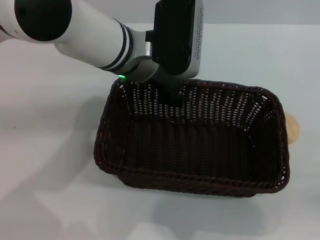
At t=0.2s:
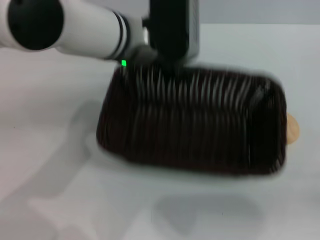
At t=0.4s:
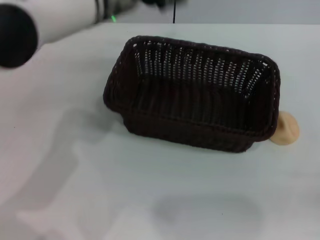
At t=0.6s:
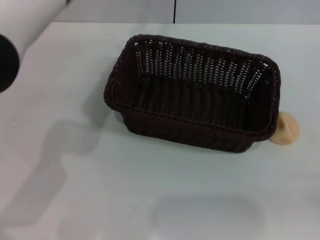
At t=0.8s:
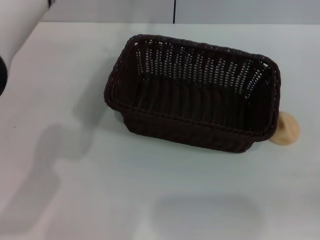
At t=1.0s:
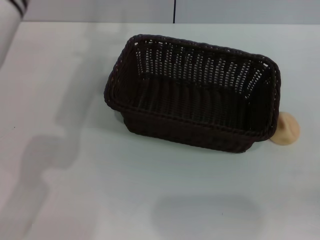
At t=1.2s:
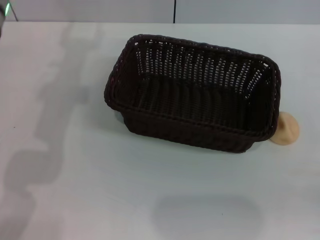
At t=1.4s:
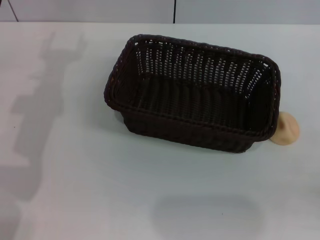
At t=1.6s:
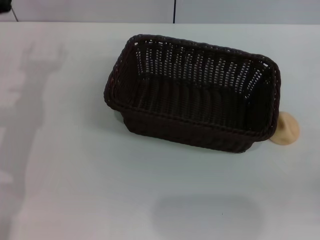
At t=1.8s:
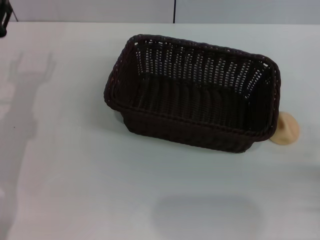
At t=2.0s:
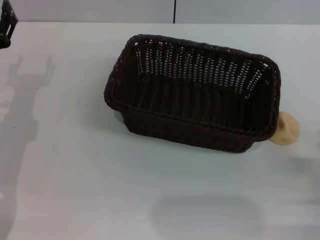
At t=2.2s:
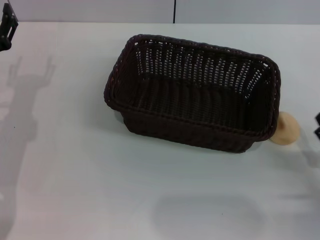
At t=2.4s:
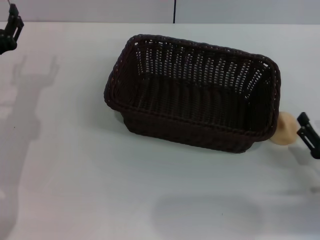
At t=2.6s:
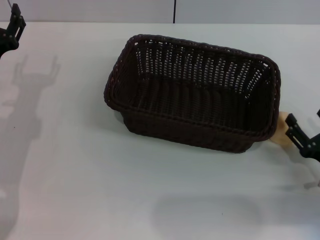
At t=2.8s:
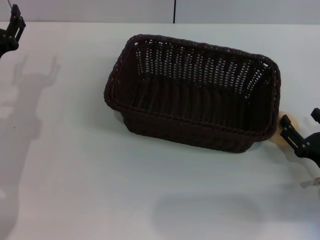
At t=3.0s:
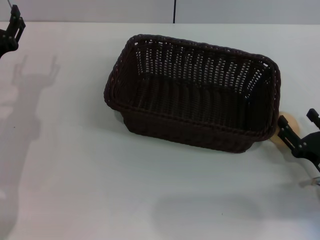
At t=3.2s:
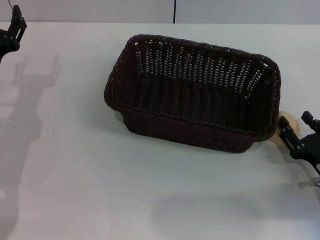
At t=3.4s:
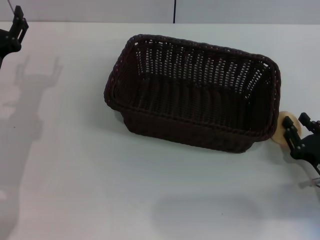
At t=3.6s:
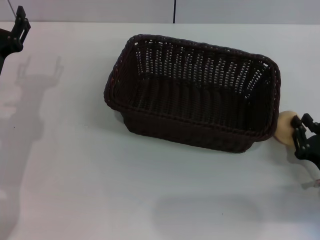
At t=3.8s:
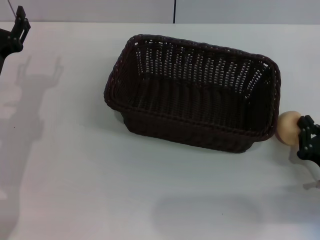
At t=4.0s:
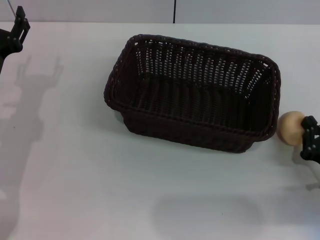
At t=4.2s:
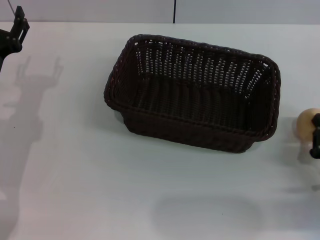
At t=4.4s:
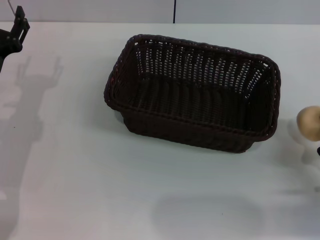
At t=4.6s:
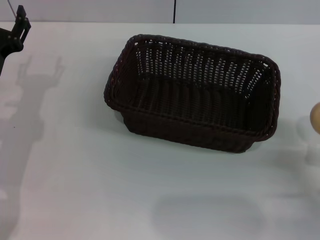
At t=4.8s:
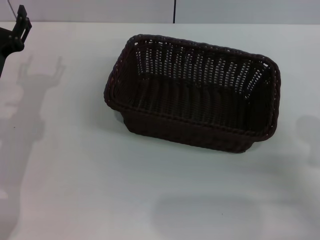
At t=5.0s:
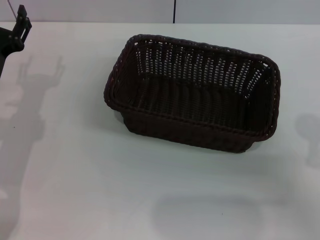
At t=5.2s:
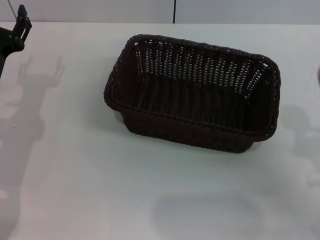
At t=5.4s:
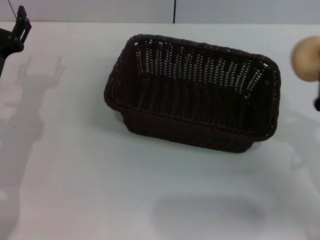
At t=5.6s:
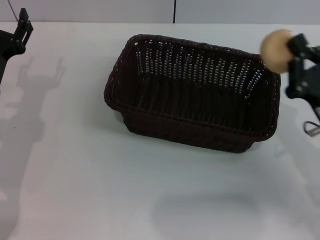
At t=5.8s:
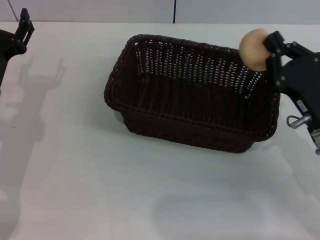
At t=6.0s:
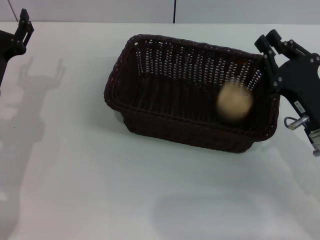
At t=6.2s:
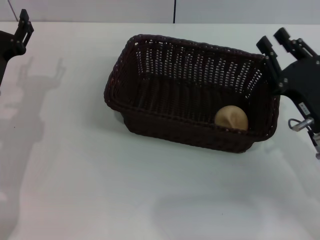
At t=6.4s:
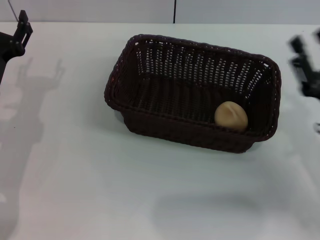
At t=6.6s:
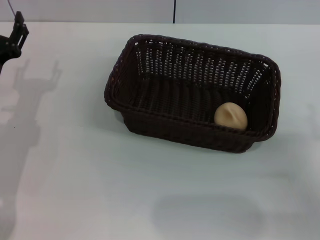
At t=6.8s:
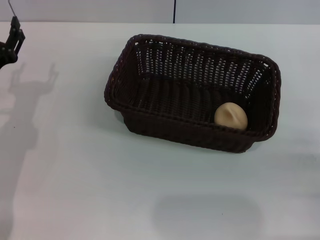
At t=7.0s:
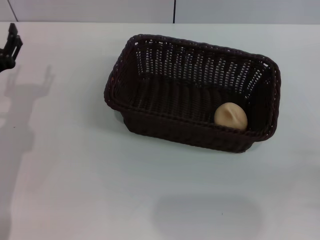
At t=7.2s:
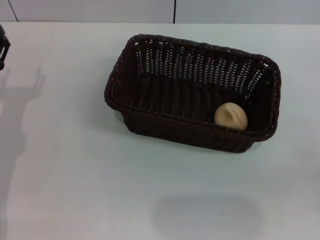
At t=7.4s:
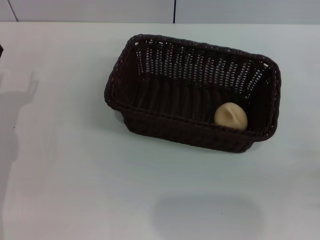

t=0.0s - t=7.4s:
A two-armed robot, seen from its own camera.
Step, t=0.4s - t=4.4s: Pick up the egg yolk pastry with the right gripper.
Step, t=4.6s - t=6.2s: Place the egg yolk pastry into the basket with the right gripper.
t=0.0s - t=1.4s: The left gripper moves to the left, roughly 20 cm.
t=1.4s - t=3.0s: The right gripper shifts about 15 cm forward and to the left, while the left gripper moves downward, some 10 cm.
t=3.0s - t=4.4s: The right gripper closes.
t=4.4s - t=6.0s: The right gripper is displaced forward, to the left and upward by some 10 cm.
t=6.0s - t=7.4s: The right gripper shifts approximately 15 cm backward and to the right, and opens its fingers.

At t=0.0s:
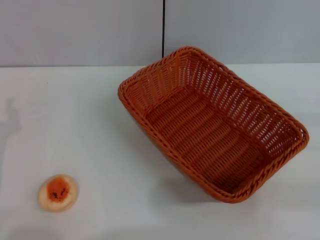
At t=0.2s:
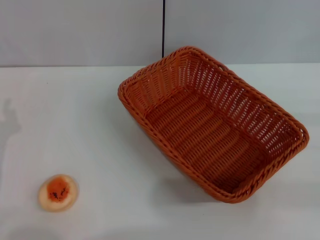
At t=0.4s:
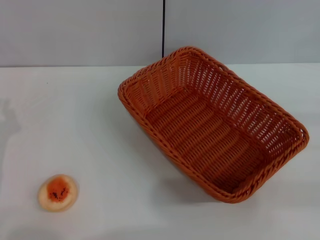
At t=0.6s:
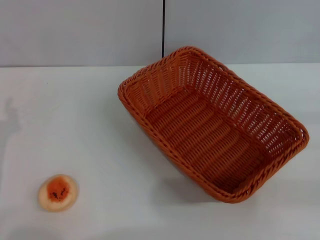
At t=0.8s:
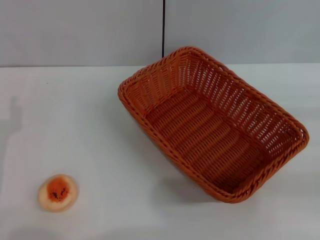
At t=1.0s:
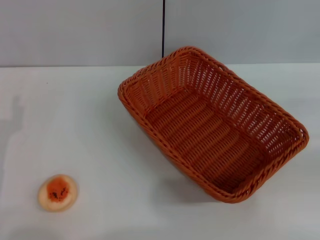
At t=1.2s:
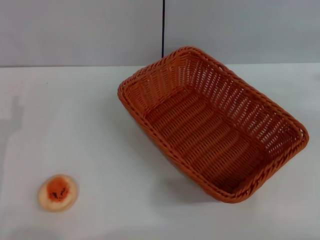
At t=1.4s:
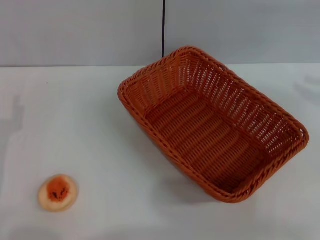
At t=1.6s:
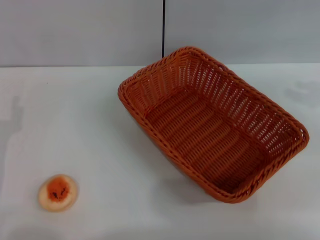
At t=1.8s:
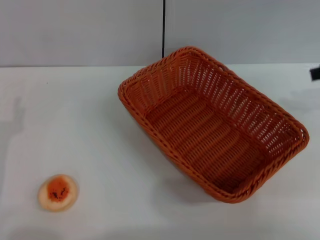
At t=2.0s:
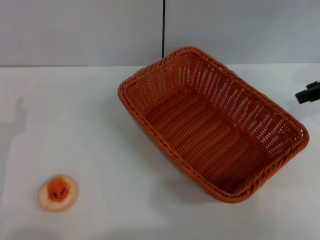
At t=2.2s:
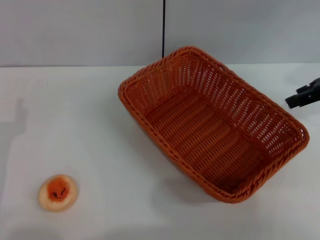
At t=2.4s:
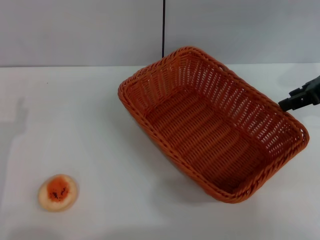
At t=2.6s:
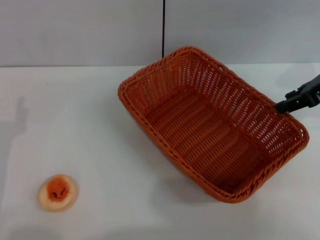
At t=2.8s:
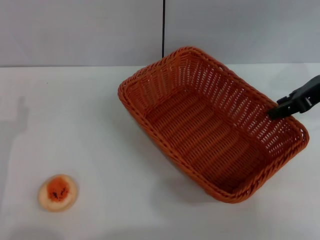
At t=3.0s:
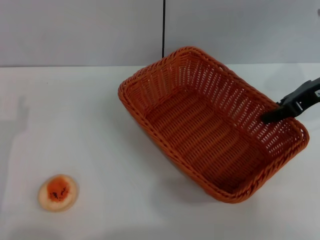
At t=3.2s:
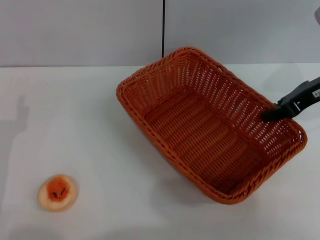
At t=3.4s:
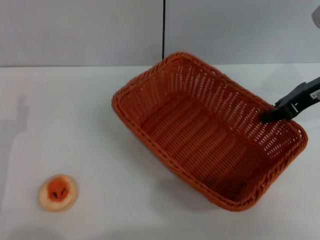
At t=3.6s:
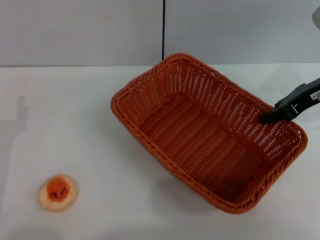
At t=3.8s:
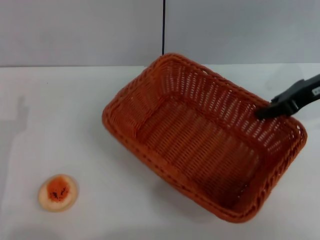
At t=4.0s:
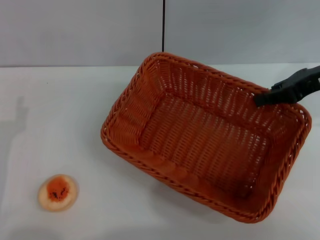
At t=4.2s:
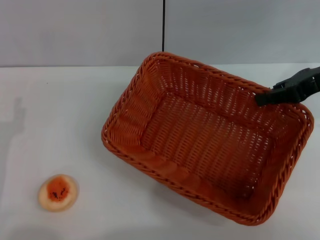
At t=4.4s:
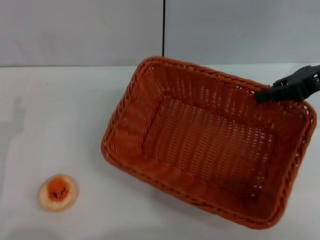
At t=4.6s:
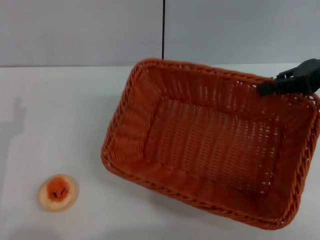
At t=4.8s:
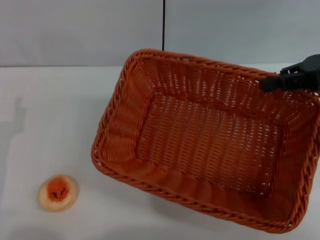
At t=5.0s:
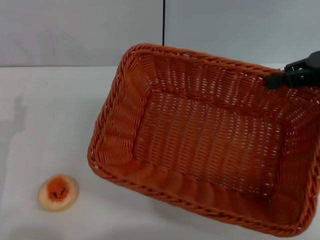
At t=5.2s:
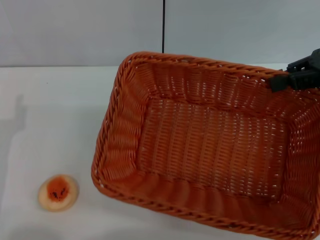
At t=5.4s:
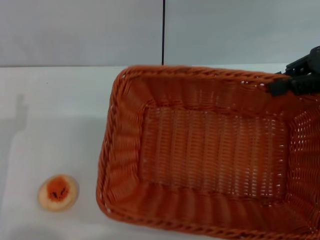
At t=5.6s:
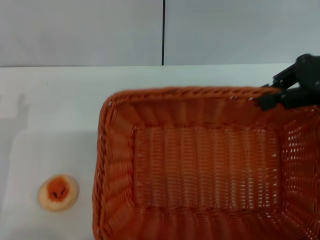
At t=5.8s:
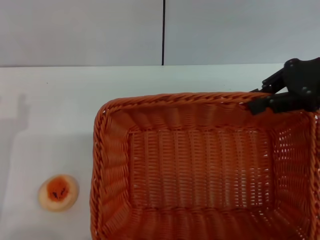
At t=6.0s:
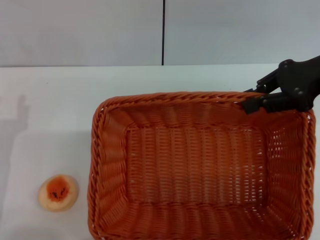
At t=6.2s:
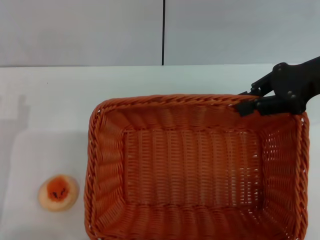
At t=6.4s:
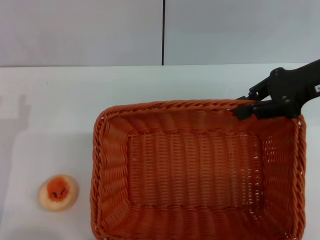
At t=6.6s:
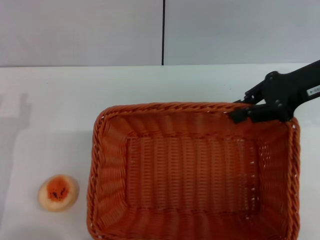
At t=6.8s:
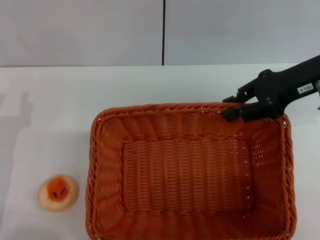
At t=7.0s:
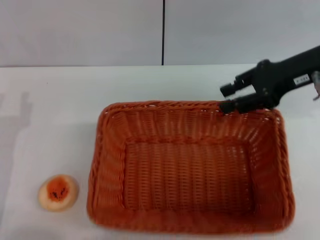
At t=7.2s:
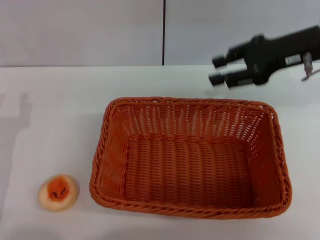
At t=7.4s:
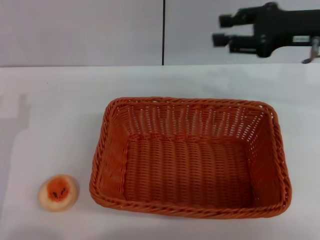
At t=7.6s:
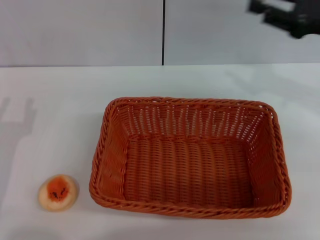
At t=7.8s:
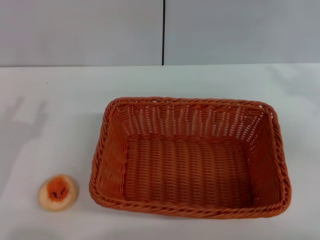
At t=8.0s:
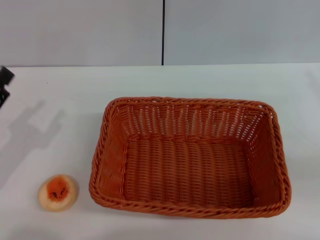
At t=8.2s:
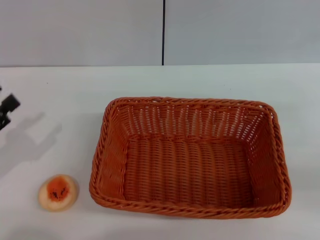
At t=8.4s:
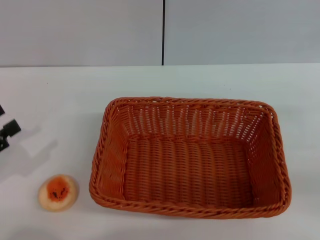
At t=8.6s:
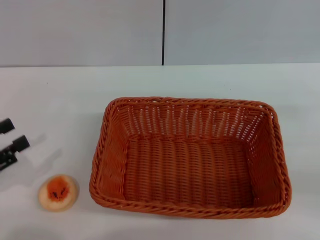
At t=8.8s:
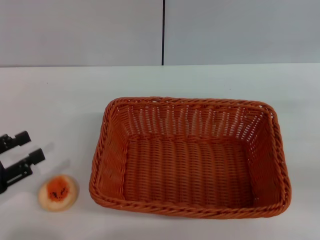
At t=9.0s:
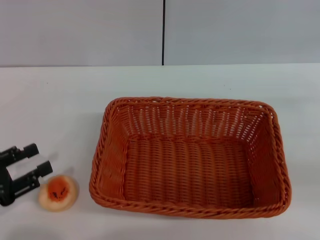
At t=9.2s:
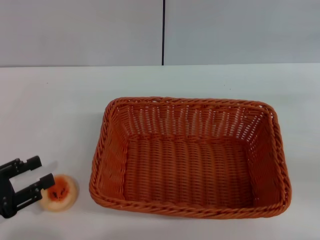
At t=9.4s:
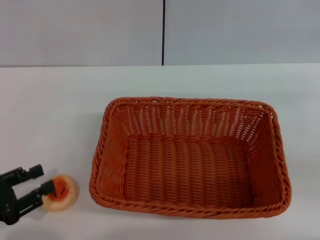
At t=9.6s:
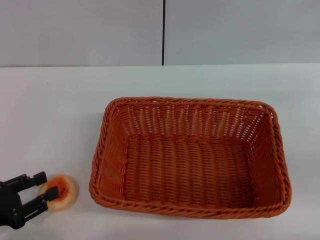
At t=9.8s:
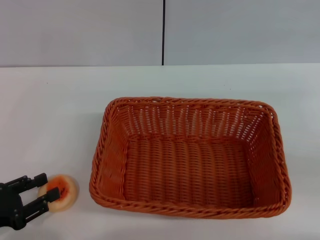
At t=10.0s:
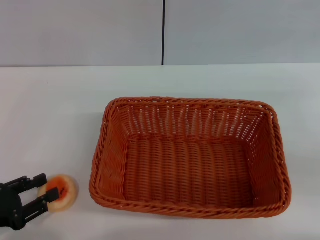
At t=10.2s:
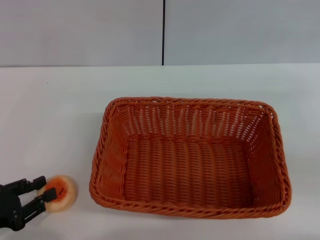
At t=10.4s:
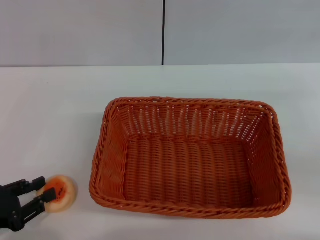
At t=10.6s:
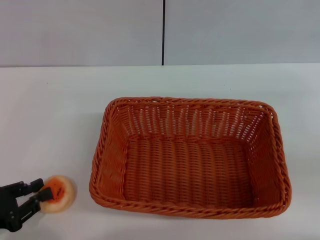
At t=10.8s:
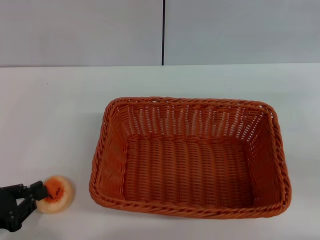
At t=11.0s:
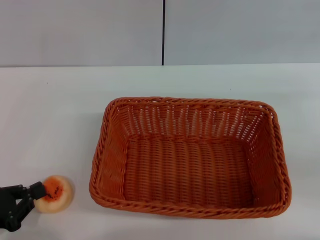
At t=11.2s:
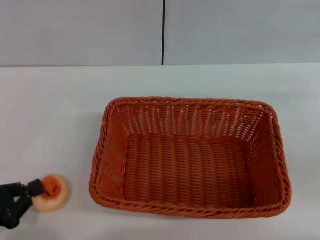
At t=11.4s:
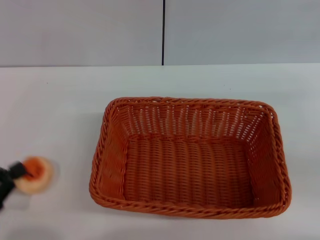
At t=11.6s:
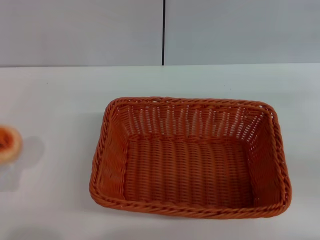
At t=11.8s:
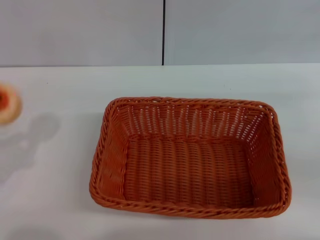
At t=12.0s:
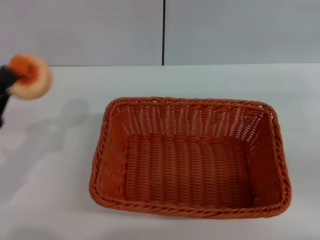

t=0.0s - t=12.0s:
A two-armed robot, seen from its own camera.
Step, t=0.0s - t=7.0s: Move the basket to the center of view with the right gripper.
Step, t=7.4s - t=11.2s: Pick up the egg yolk pastry with the left gripper.
t=1.6s - t=3.0s: The right gripper shifts roughly 10 cm to the left and downward.
t=3.0s - t=4.4s: The right gripper closes its fingers.
t=6.0s - t=7.6s: The right gripper opens its fingers.
t=7.6s - t=9.0s: The right gripper goes approximately 15 cm backward, to the right and downward. The left gripper is displaced to the left by about 5 cm.
t=9.0s - t=10.4s: The grippers move only a little.
t=10.4s - t=12.0s: The left gripper is displaced forward by some 5 cm, and closes.

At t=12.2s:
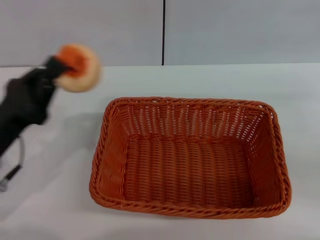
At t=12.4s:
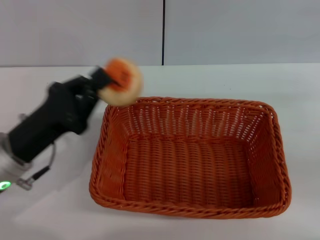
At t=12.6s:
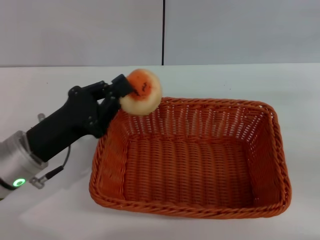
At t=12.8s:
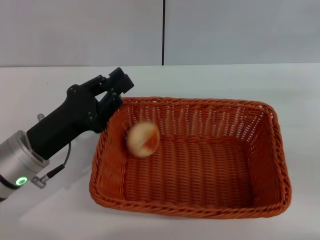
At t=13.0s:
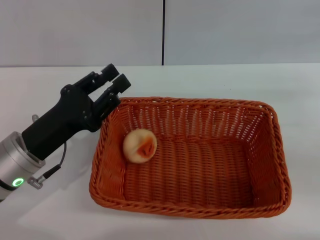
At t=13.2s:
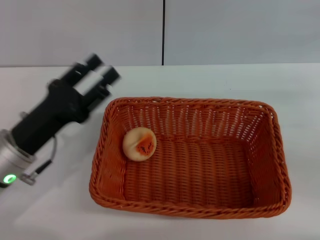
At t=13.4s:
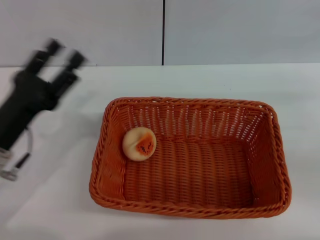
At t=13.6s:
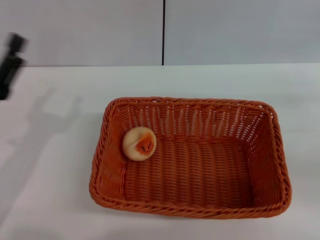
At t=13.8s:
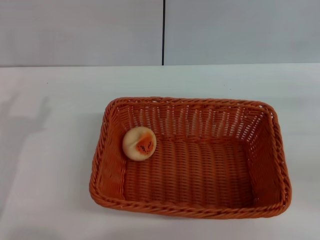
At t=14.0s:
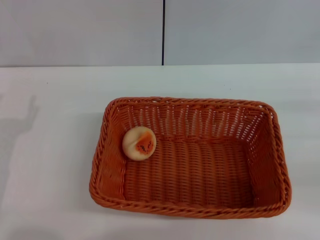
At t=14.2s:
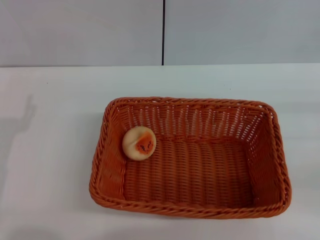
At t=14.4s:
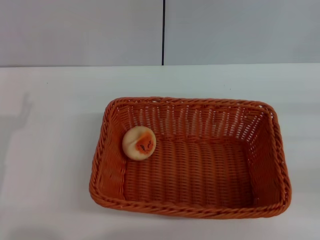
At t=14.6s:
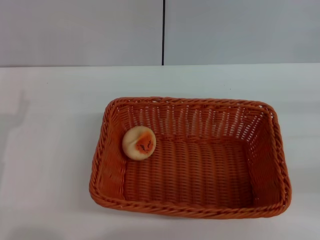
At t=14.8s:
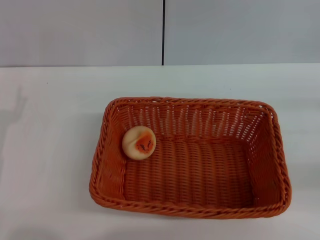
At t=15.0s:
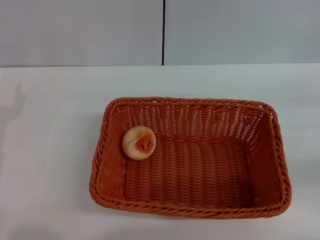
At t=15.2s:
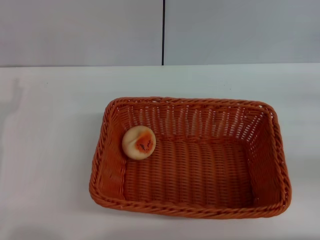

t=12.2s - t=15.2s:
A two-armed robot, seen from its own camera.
Step, t=12.2s - t=13.2s: Place the egg yolk pastry into the basket with the left gripper.
t=12.2s - t=13.8s: The left gripper opens its fingers.
